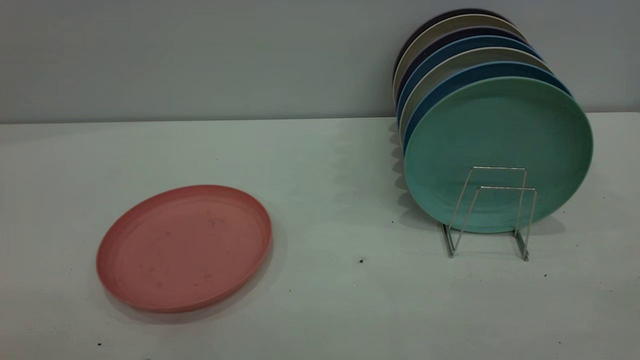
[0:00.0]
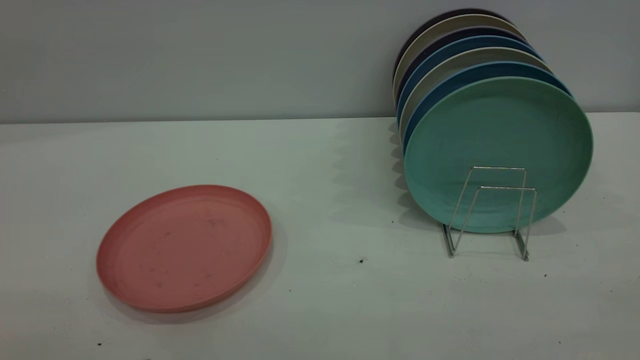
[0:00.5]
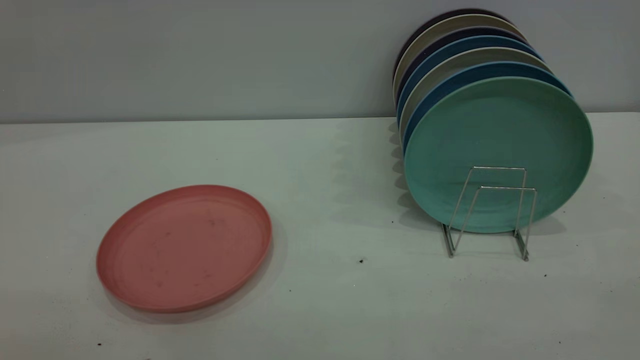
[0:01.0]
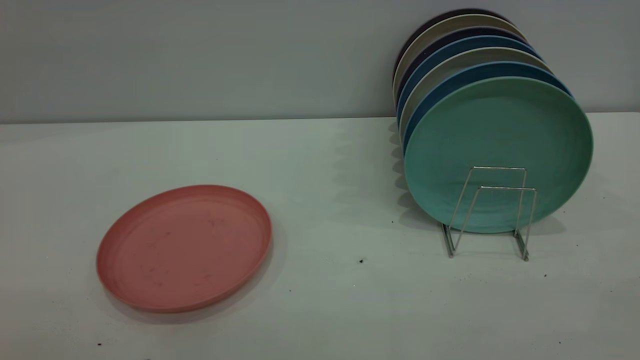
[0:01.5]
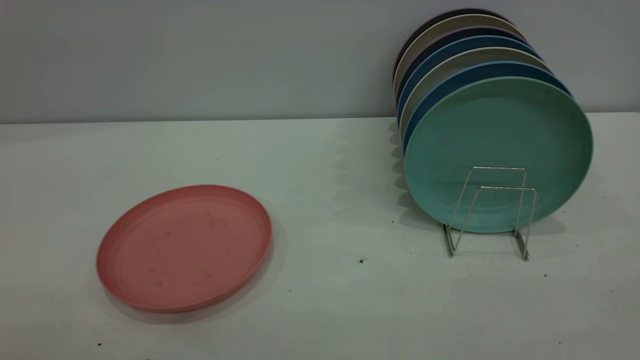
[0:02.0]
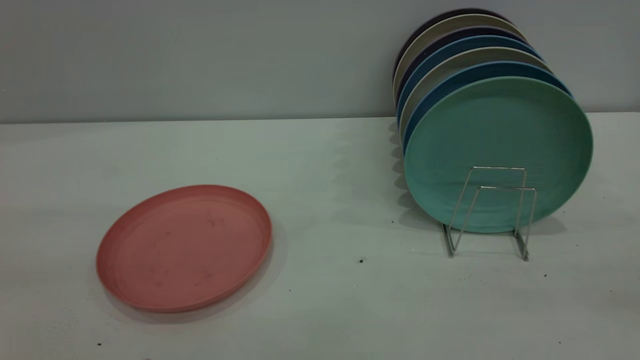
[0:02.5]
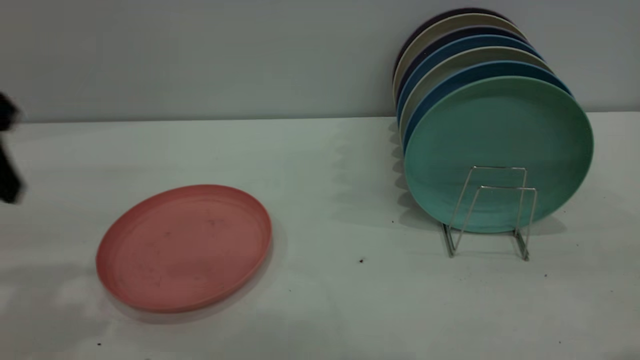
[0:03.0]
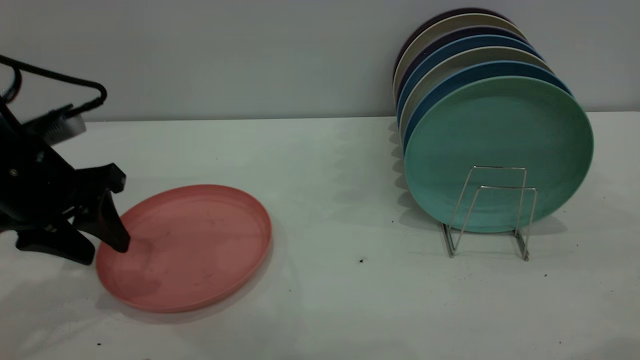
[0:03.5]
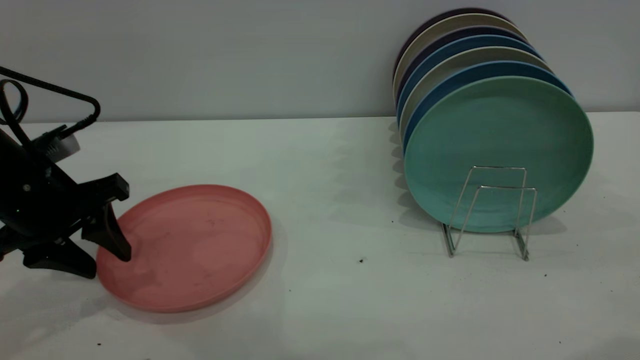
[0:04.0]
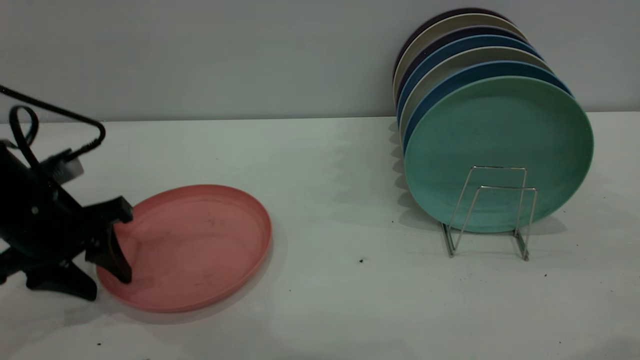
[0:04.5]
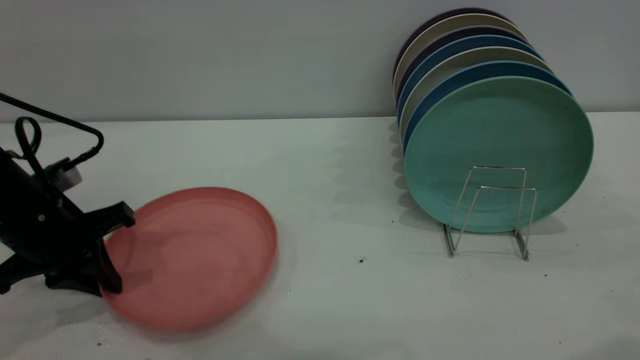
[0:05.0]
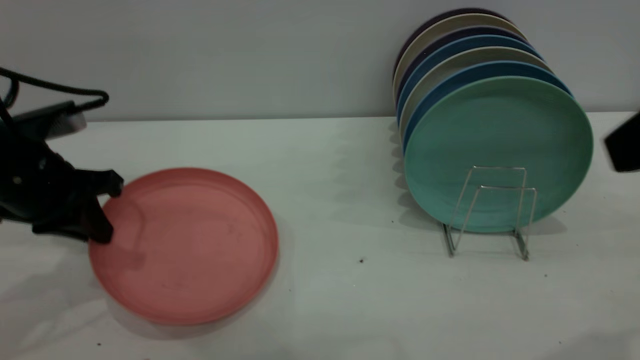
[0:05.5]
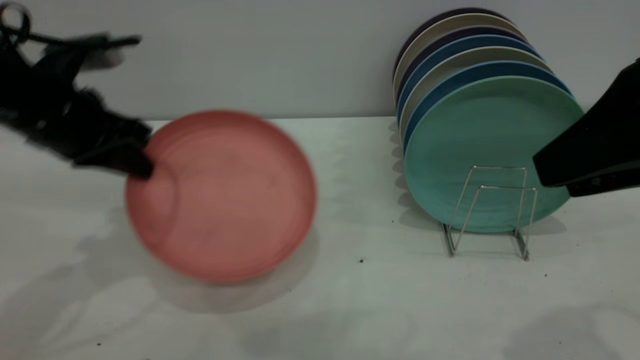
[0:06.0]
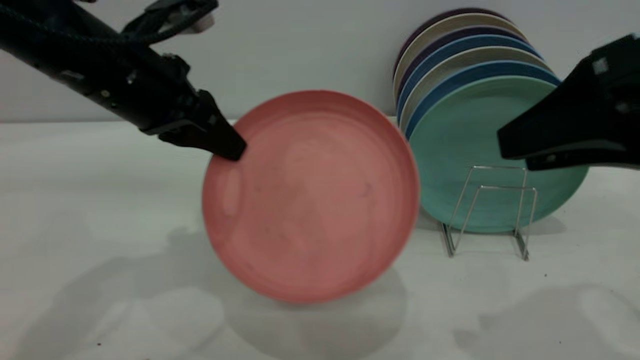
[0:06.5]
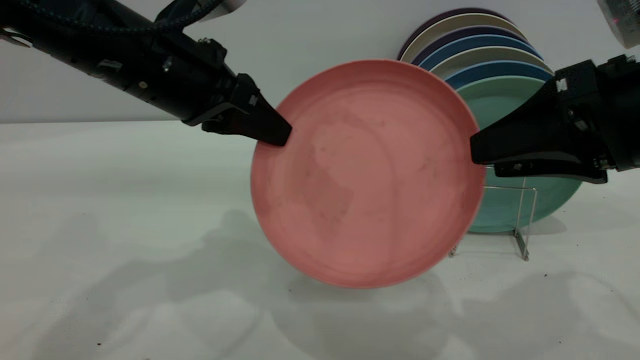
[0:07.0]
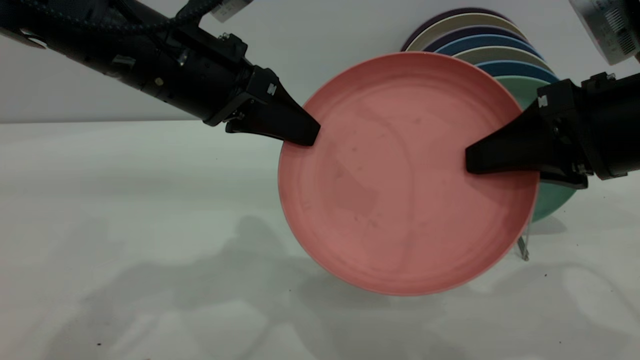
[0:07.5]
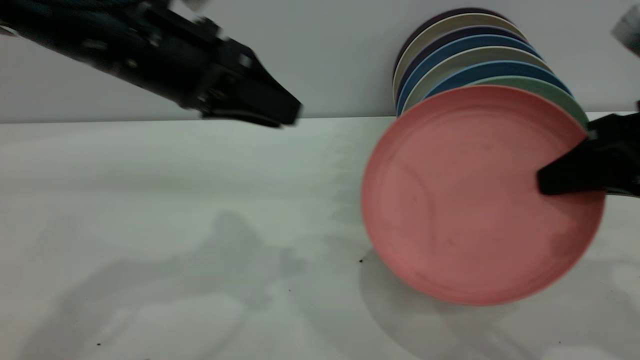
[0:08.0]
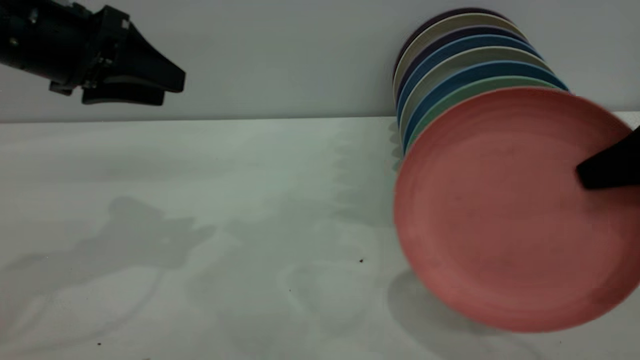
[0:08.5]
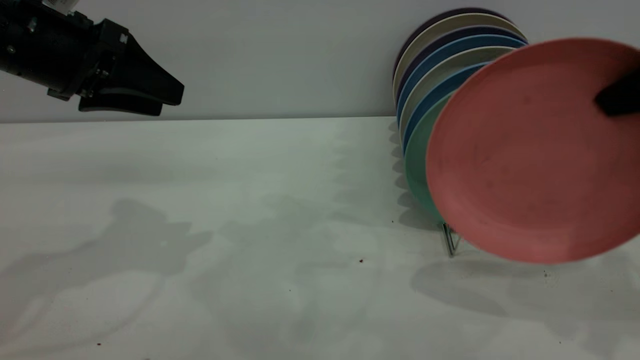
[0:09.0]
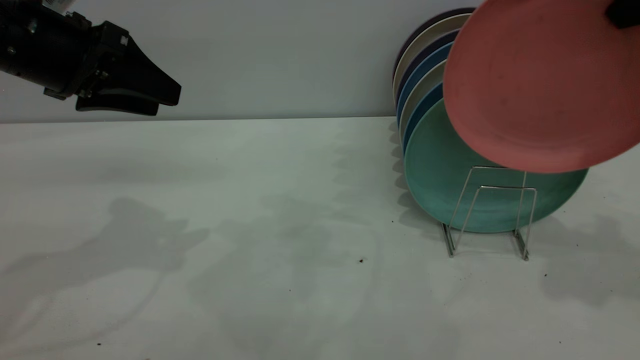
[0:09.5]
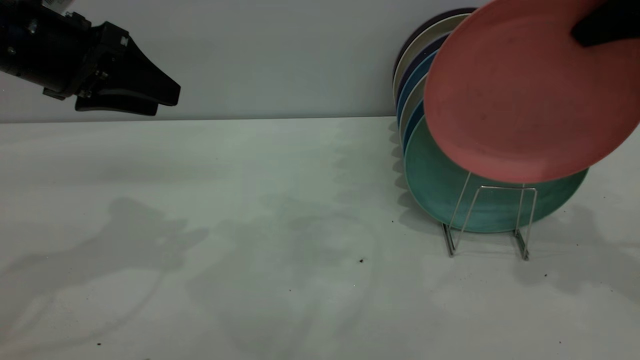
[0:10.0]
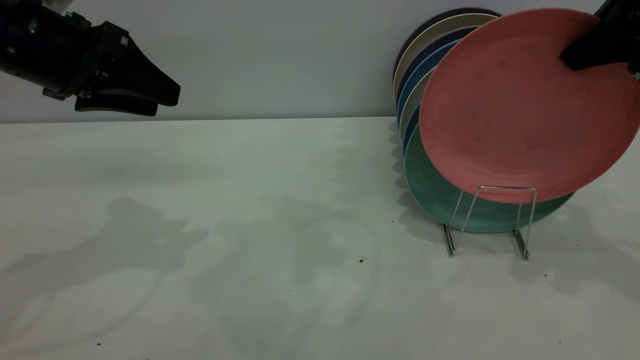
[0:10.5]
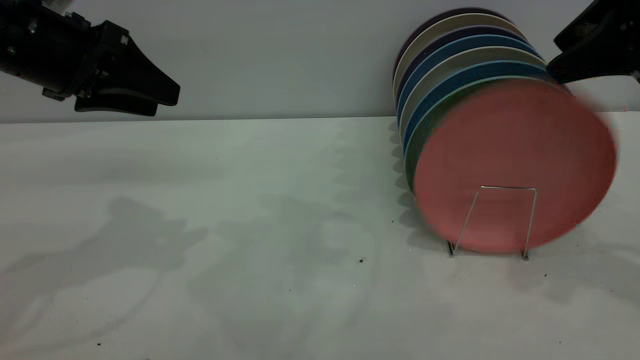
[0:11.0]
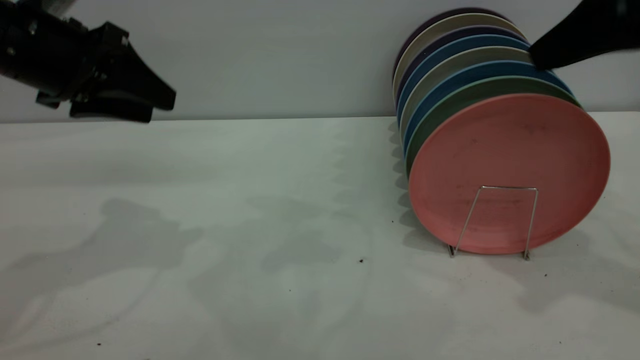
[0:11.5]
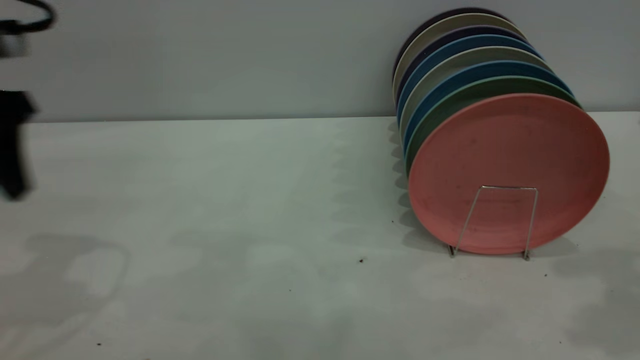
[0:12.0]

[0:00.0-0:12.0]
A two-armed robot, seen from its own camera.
Task of the whole recording: put the plate on the plate rack.
Step, 0:00.0 to 0:05.5: Pick up the plate with the left gripper.
Step, 0:06.0 to 0:07.5: Pass the plate from the left gripper to the right gripper.
Step, 0:08.0 to 0:11.0: Place the plate on the shelf.
0:02.0 to 0:04.0: The left gripper goes approximately 40 cm forward and downward.
0:04.0 to 0:06.0: The left gripper is displaced upward by roughly 5 cm, and closes its fingers. Meanwhile the right gripper moves about 5 cm.
0:06.0 to 0:08.0: The left gripper travels to the right by approximately 10 cm, and opens its fingers. Meanwhile the right gripper travels downward and forward by approximately 10 cm, and closes.
0:08.0 to 0:10.0: The left gripper heads to the left, covering roughly 10 cm, while the right gripper goes roughly 15 cm upward and forward.
0:10.0 to 0:12.0: Both grippers move backward, approximately 5 cm. The right gripper opens.
